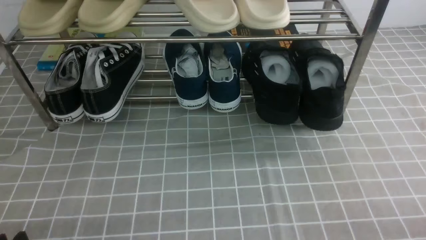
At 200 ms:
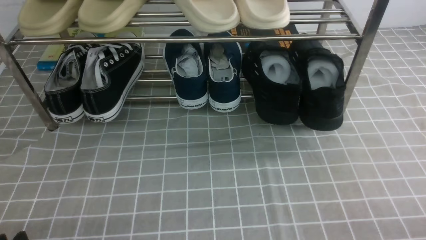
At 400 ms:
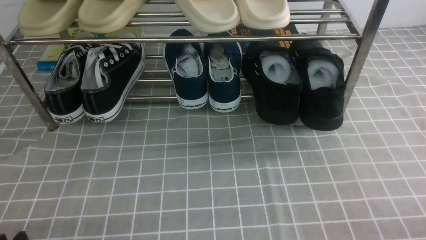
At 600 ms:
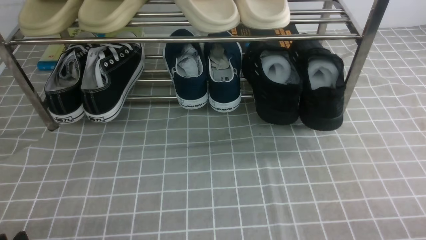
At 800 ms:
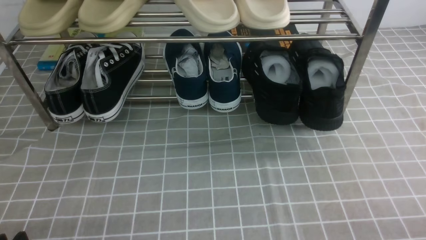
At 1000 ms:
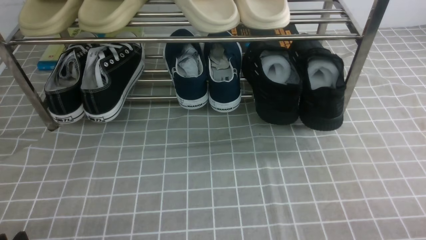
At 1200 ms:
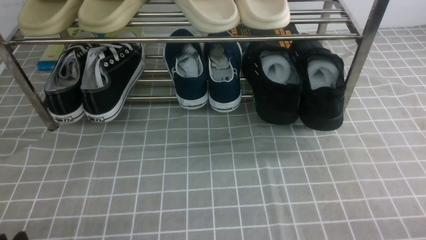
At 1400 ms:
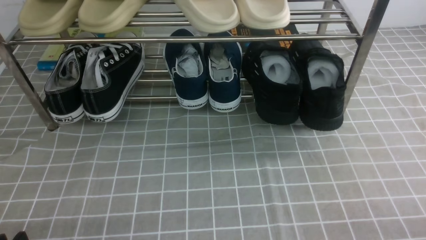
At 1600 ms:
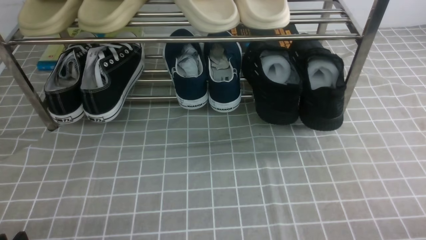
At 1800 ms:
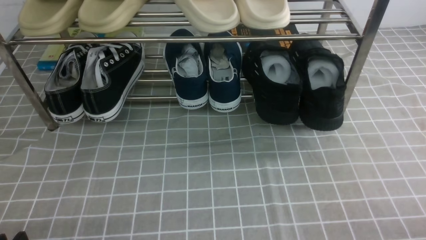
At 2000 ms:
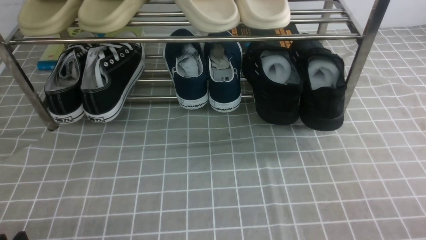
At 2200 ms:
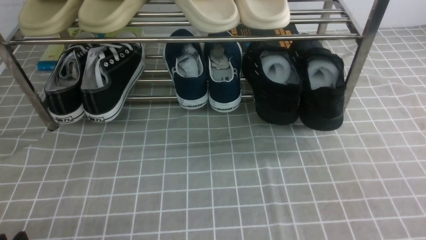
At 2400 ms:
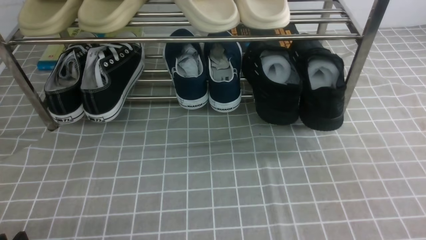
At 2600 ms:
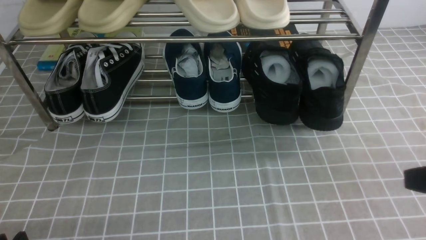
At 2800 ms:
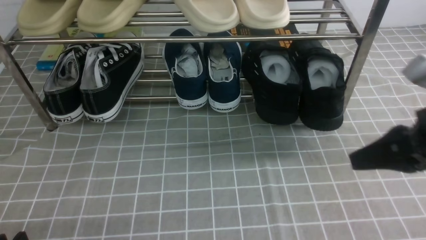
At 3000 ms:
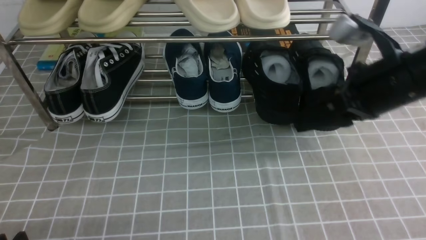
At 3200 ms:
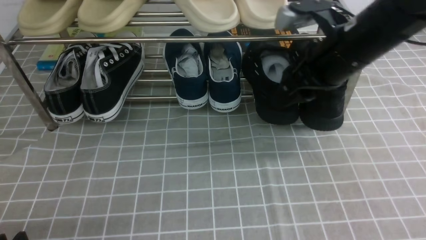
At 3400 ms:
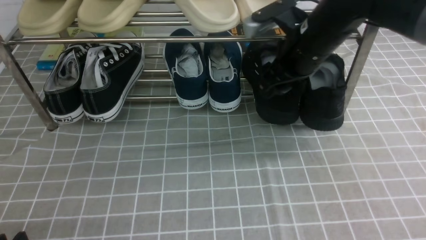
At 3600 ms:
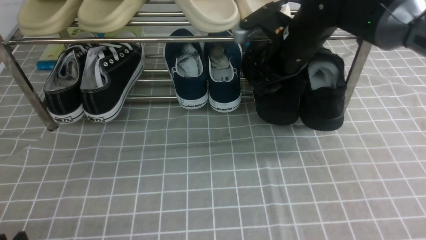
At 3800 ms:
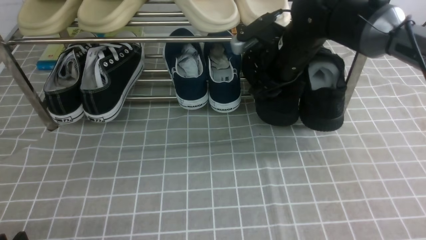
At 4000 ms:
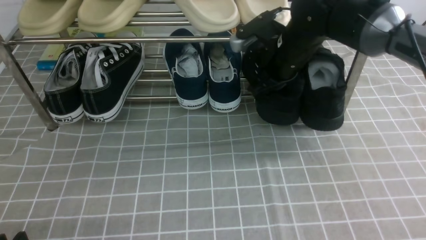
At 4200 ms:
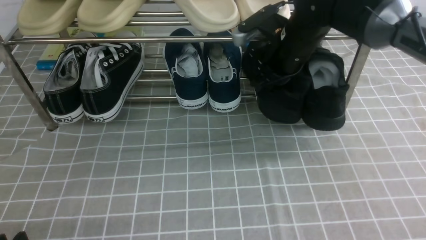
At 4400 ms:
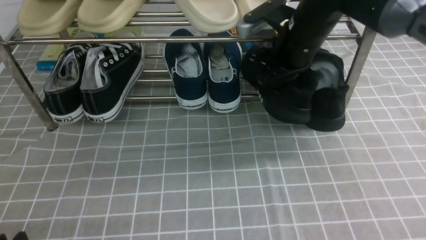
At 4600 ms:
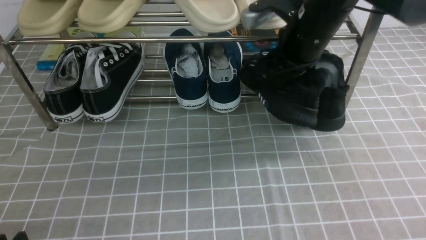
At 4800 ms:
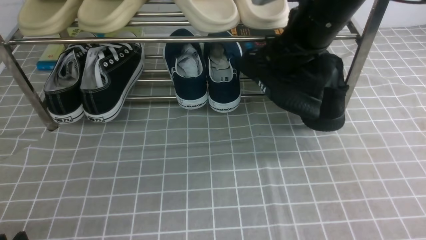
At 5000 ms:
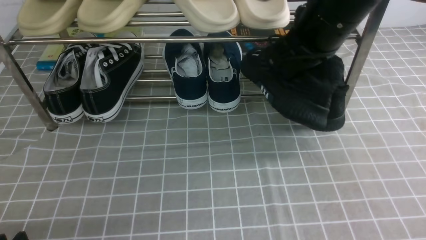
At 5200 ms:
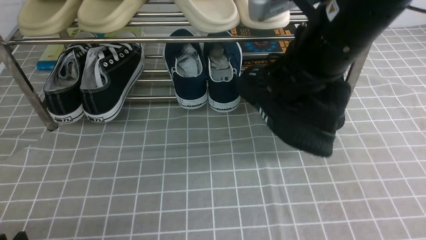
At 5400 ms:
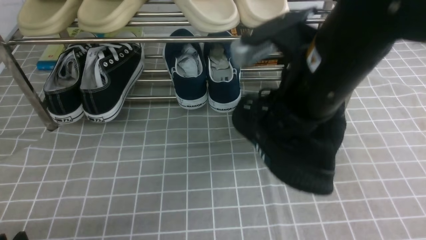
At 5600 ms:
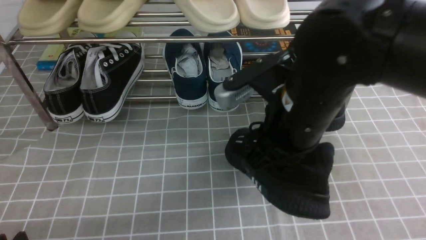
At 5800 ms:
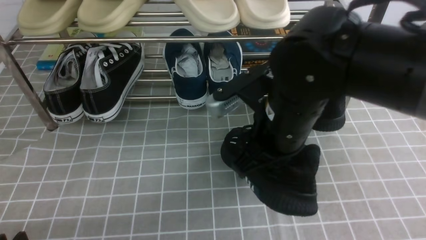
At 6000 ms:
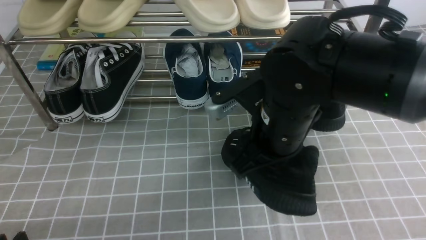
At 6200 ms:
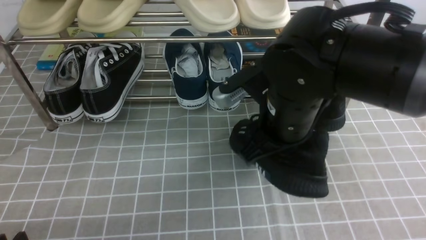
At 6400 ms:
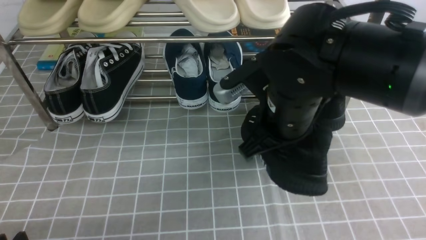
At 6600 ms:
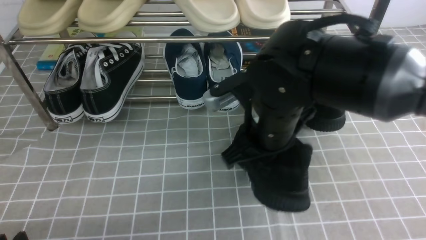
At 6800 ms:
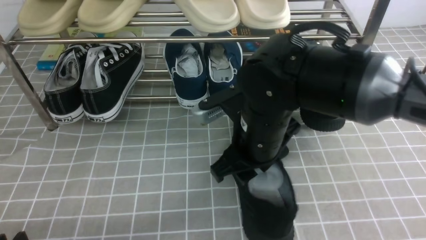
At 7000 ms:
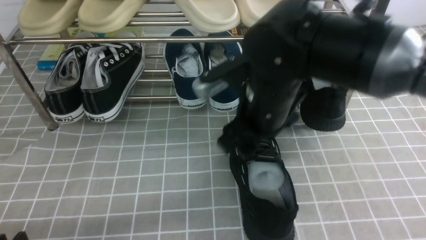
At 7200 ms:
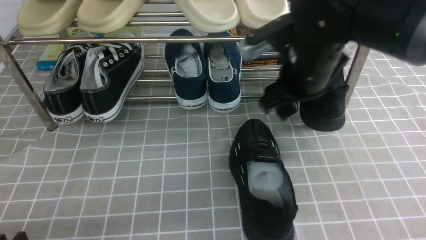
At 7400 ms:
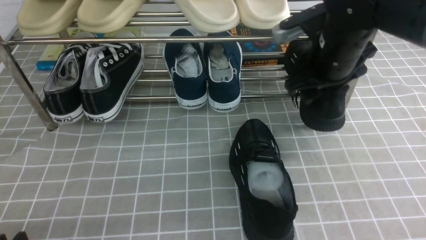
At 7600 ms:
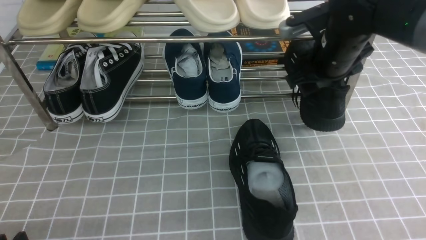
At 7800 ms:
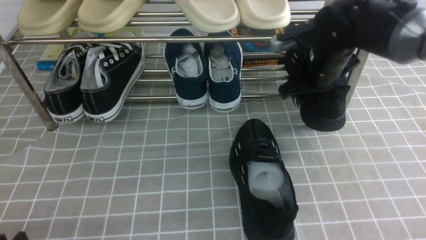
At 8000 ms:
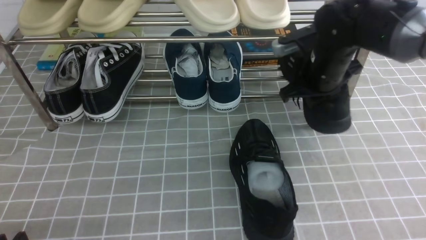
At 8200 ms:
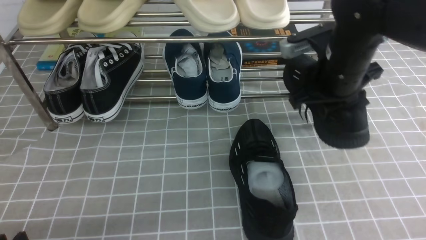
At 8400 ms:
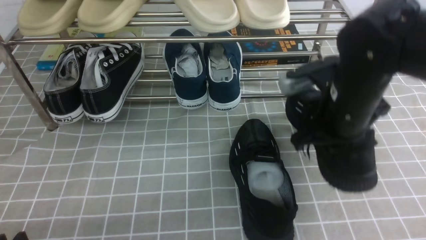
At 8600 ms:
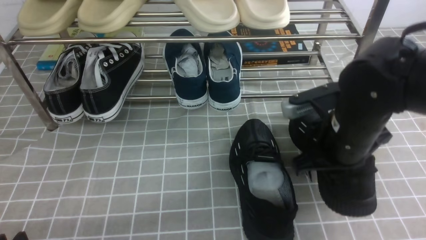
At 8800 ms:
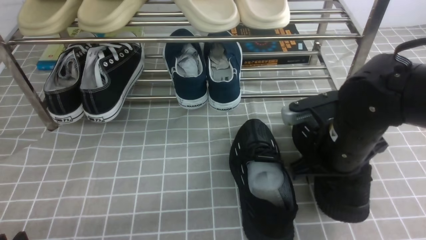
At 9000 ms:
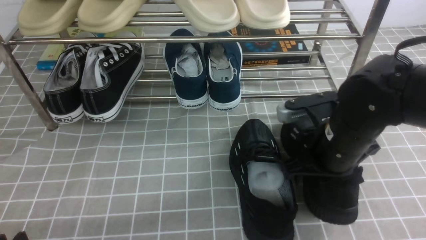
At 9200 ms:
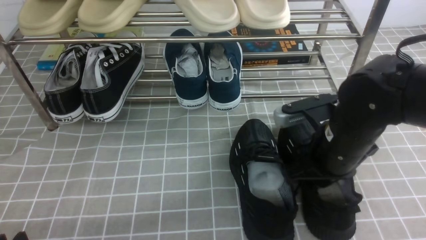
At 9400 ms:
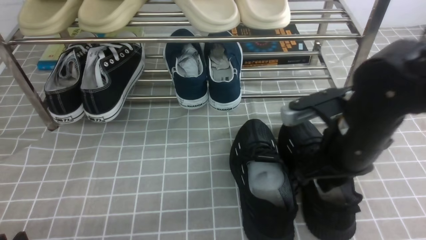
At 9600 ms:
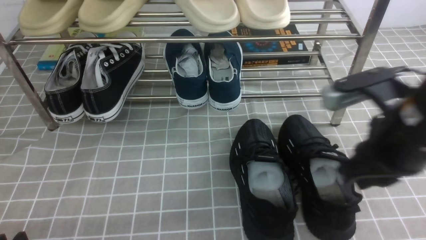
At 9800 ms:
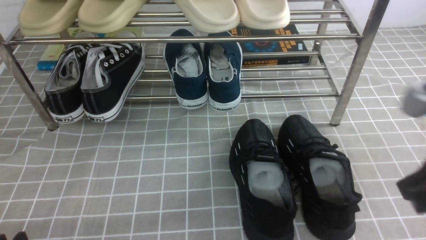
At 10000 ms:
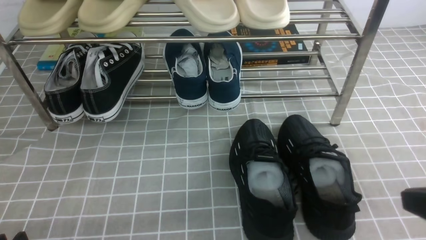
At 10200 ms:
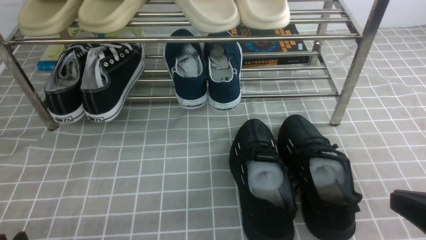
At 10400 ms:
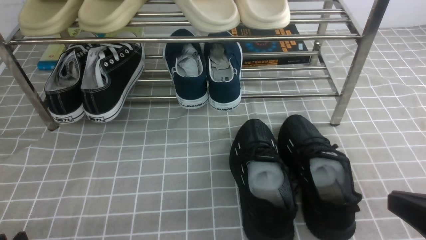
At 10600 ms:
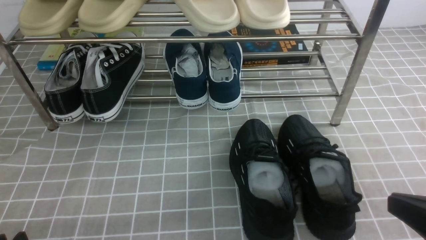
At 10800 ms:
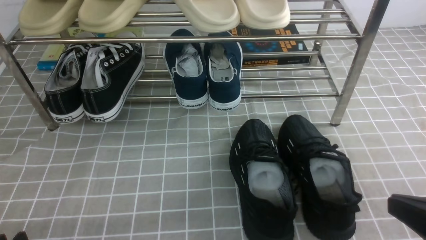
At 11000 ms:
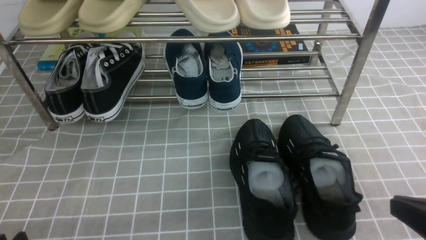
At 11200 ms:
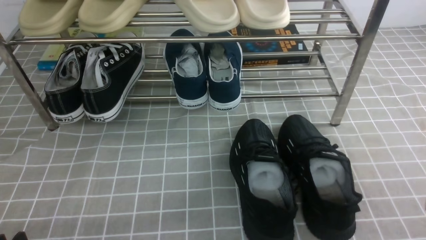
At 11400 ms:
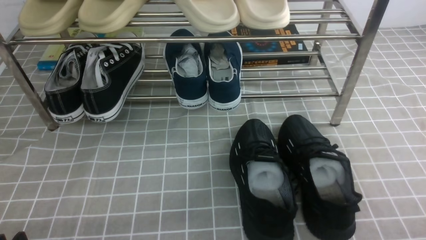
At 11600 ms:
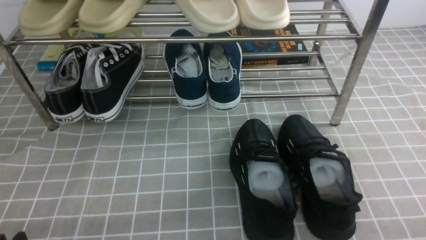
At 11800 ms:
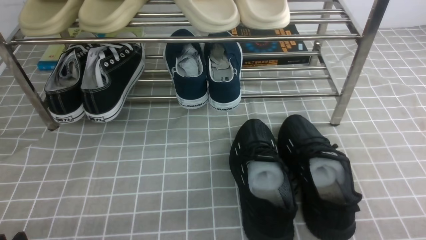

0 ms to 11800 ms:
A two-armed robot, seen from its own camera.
Step, 0 ms to 4200 ms: use the right arm to clamp a shoe on the right side of the shoe rack.
Step, 4400 ms to 7000 ms: use the right arm to take out the clamped shoe from the shoe rack and put it down.
Step, 7200 ms to 8200 ms: use the right arm to clamp a shoe on the right side of the shoe rack.
Step, 8400 ms to 9400 ms: use the right arm to take out the clamped shoe from the shoe rack and put it down.
1400 ms to 3000 ms: The right gripper goes some 30 cm forward, upward and to the left, and closes, then reopens.
3000 ms to 4400 ms: The right gripper goes roughly 15 cm forward and to the left, and closes up.
4400 ms to 6000 ms: The right gripper heads backward, covering roughly 15 cm.
6000 ms to 7400 ms: The right gripper travels forward and to the right by roughly 15 cm, and opens its fingers.
7400 ms to 8800 ms: The right gripper moves backward and downward, roughly 10 cm, and closes up.
8800 ms to 10400 ms: The right gripper shifts approximately 20 cm backward and to the right.
10400 ms to 11800 ms: The right gripper heads downward and to the right, covering about 10 cm.

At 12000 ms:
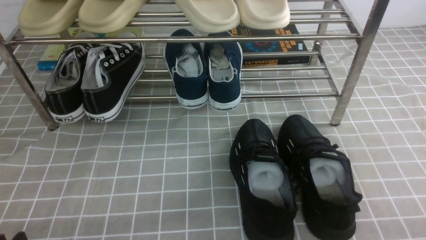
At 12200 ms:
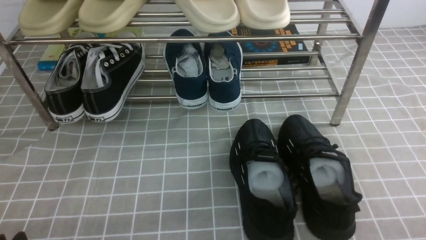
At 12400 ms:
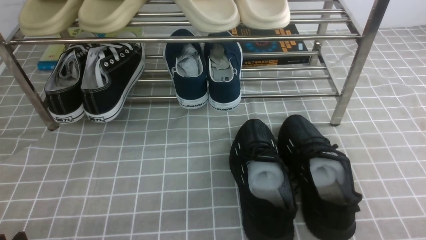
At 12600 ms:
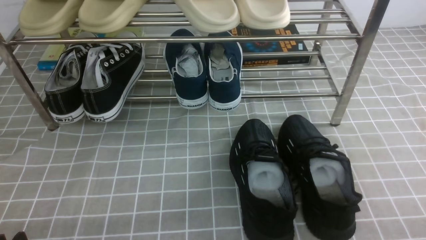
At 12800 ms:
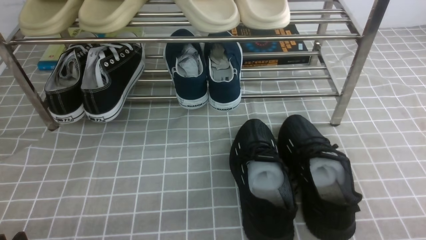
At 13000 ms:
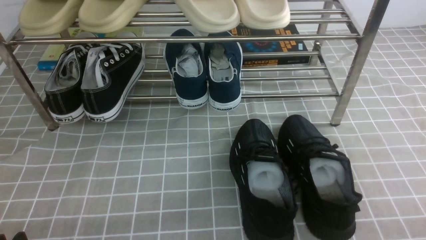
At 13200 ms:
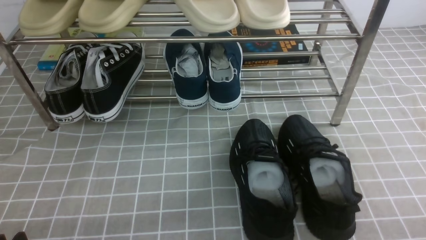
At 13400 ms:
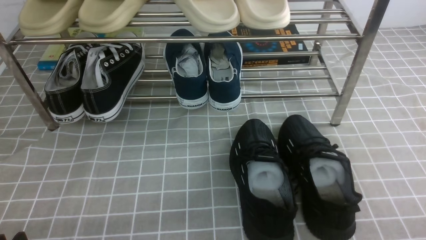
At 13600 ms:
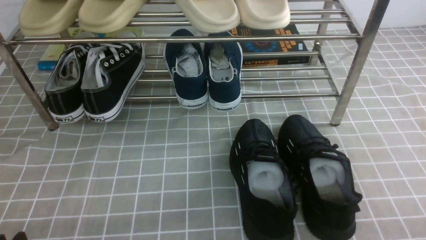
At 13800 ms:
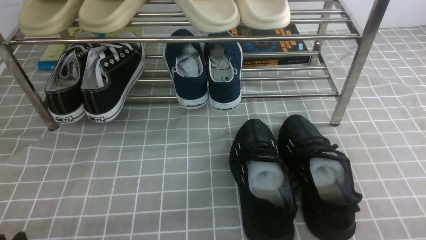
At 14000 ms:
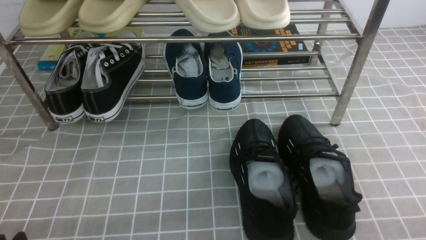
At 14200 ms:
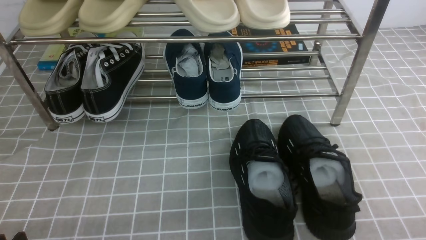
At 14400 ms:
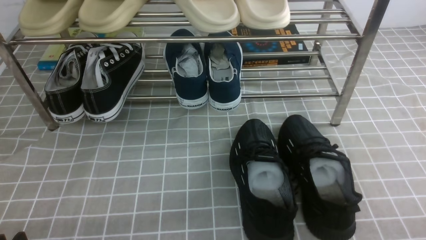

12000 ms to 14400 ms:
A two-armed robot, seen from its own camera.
12000 ms to 14400 ms: Both grippers stay put.

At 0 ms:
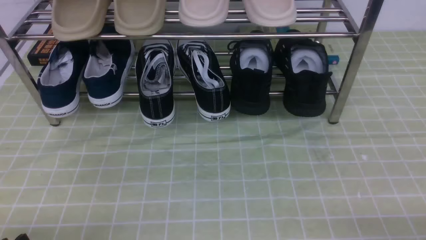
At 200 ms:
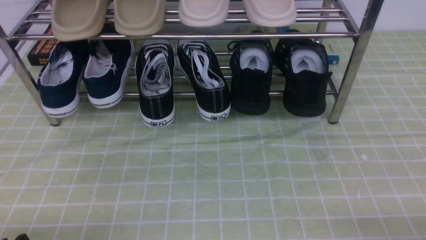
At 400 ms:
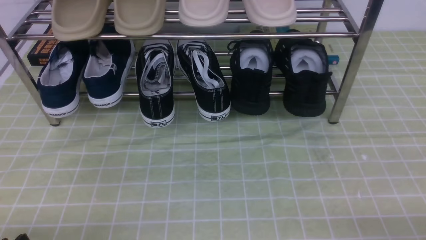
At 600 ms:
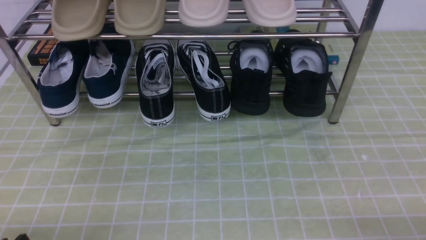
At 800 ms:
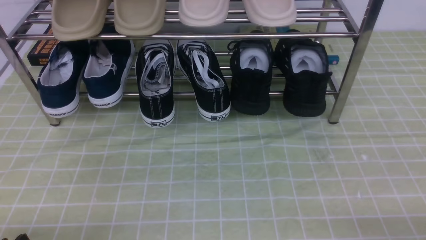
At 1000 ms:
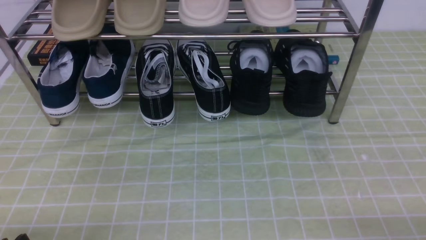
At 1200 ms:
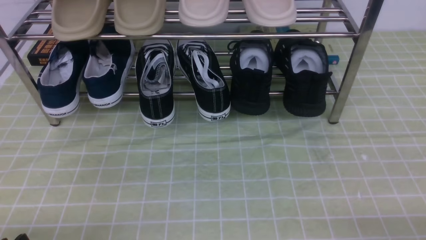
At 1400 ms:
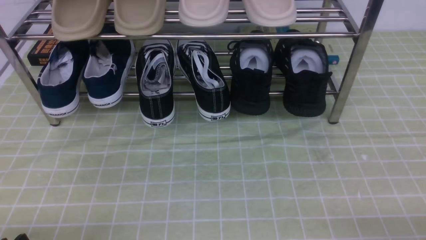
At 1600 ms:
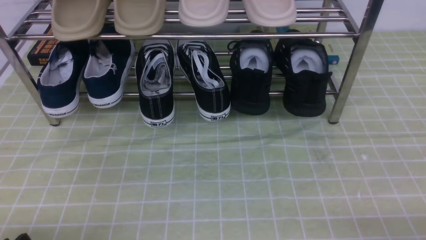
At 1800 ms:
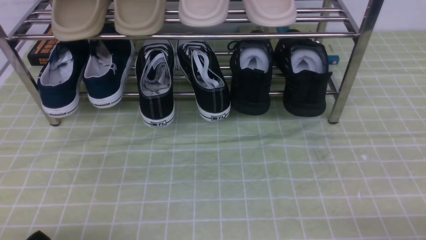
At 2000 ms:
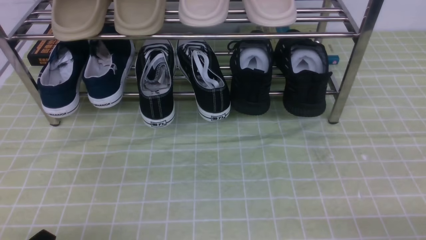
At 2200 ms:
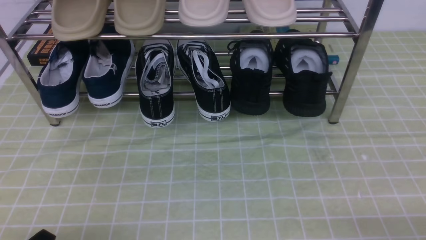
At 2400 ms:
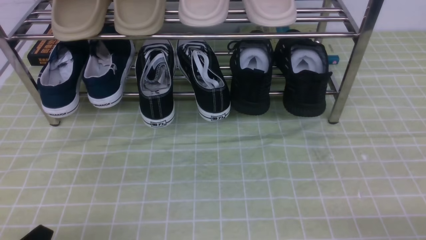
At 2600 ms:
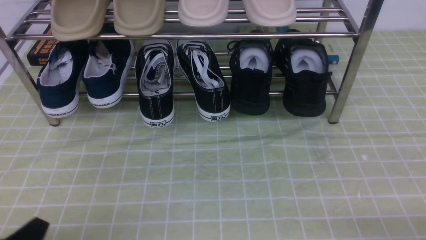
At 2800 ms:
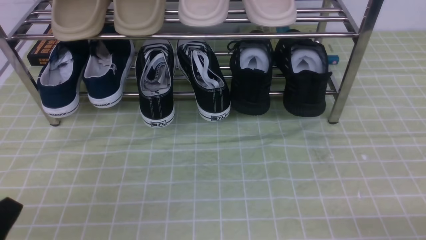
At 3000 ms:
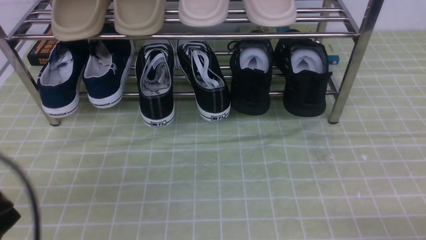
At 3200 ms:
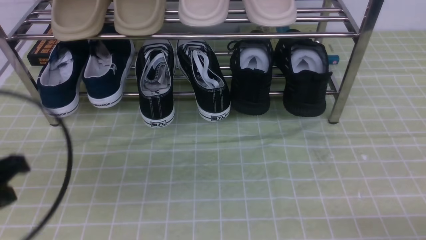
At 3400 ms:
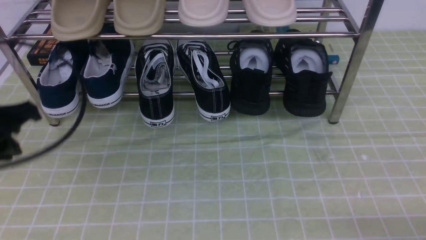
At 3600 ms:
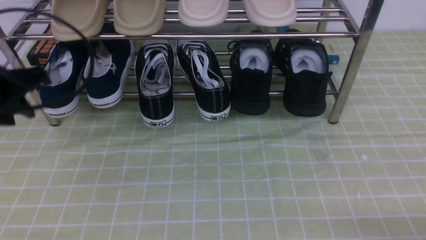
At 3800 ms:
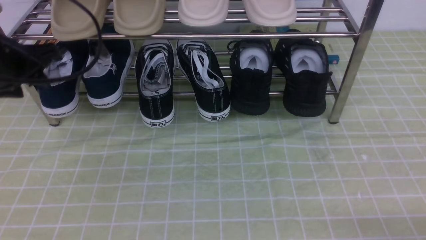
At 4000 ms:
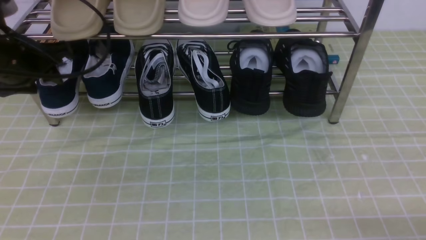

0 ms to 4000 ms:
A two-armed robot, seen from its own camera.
0 ms to 1400 ms: The two grippers keep their place.
2600 ms to 4000 ms: The left gripper is displaced forward and upward by roughly 30 cm, and opens its fingers.
